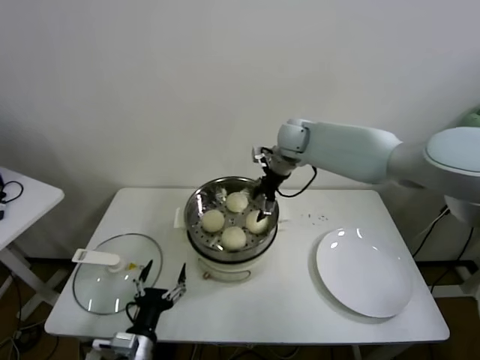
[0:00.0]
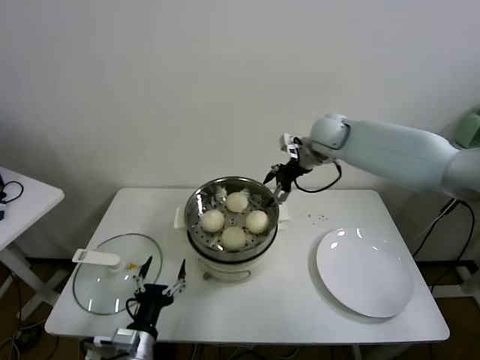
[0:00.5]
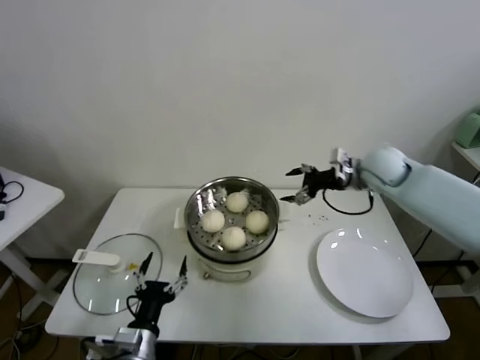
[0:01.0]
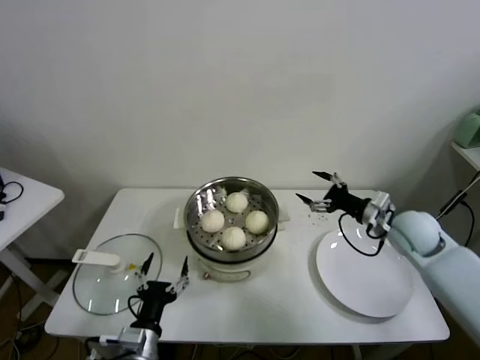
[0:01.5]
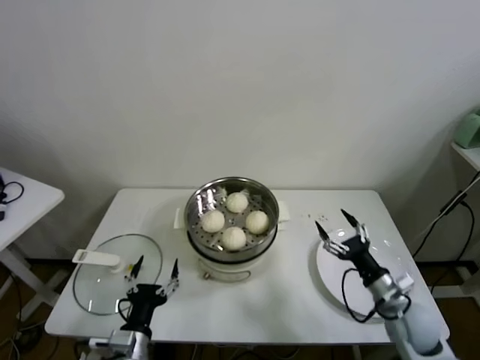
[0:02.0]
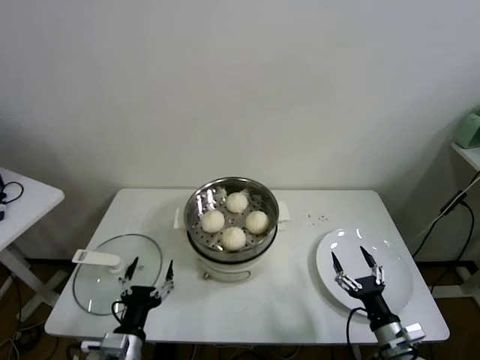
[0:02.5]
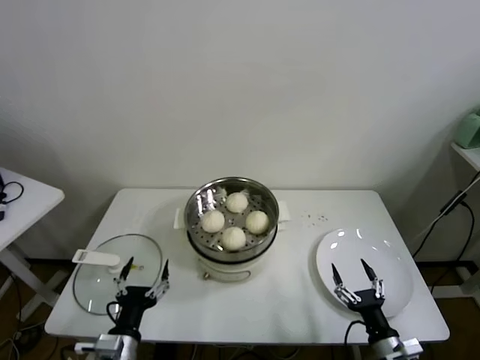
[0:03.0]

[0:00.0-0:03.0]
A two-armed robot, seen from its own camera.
Task of the whole recording: take steamed baozi put them in steamer.
0:00.0 to 0:01.5: The right gripper is displaced to the right, backward and downward by approximately 30 cm.
0:01.5 to 0:03.0: The right gripper is displaced backward and downward by some 35 cm.

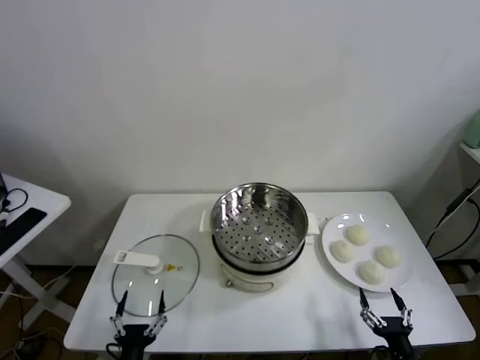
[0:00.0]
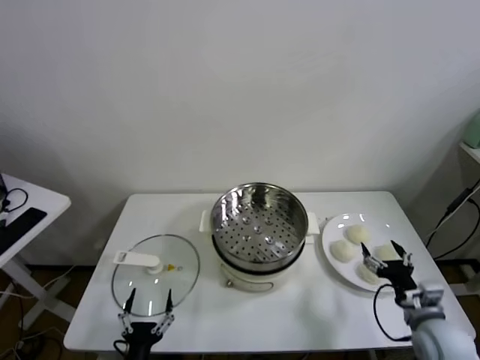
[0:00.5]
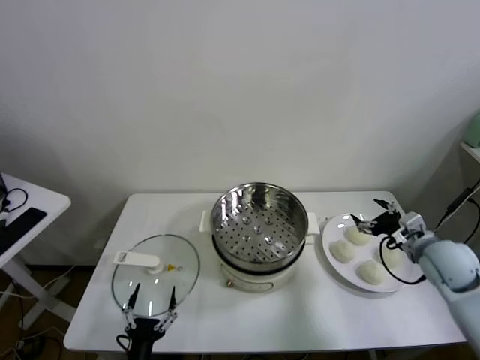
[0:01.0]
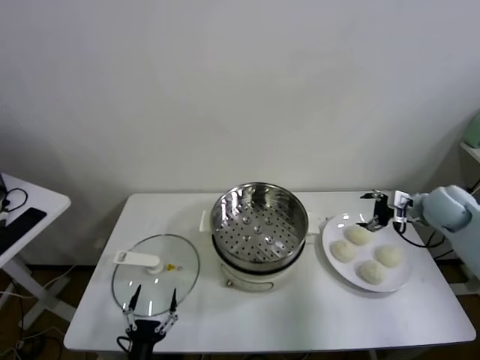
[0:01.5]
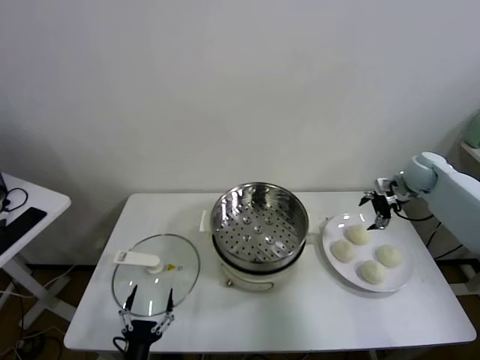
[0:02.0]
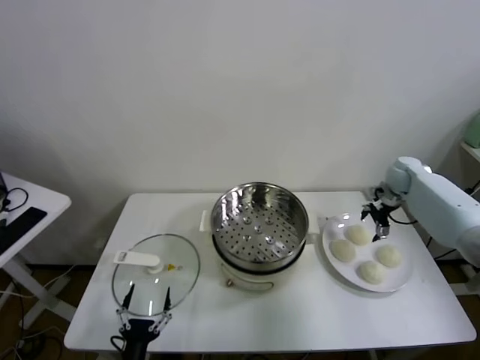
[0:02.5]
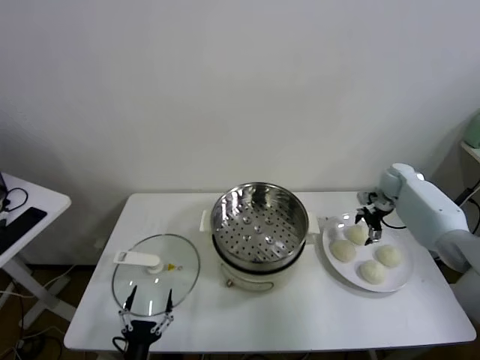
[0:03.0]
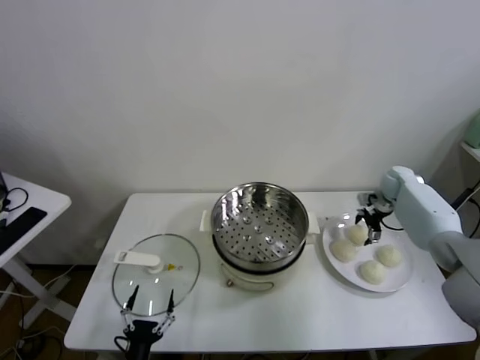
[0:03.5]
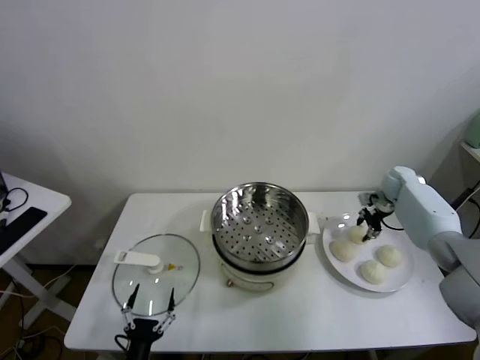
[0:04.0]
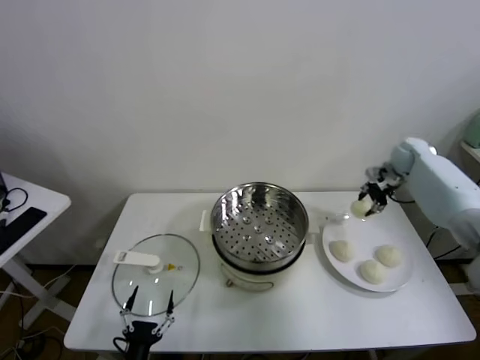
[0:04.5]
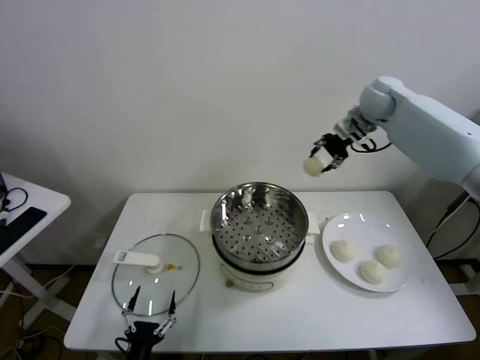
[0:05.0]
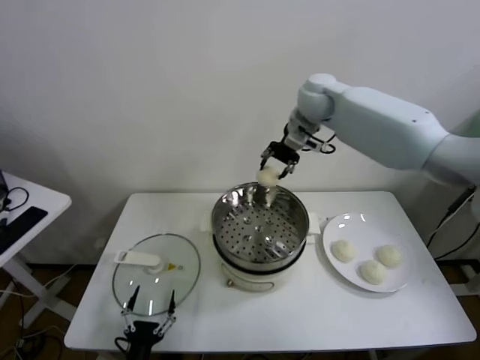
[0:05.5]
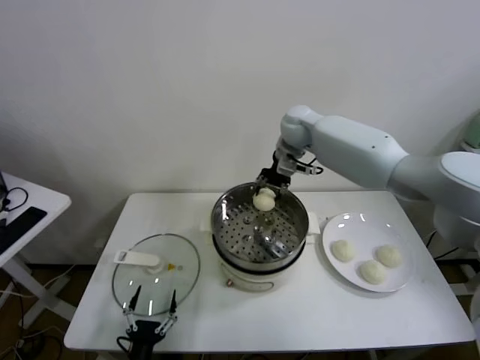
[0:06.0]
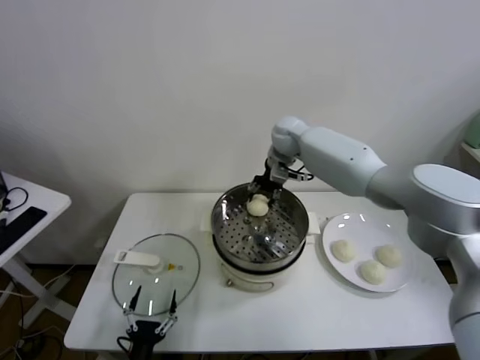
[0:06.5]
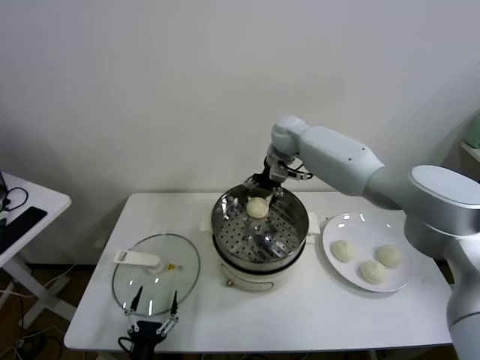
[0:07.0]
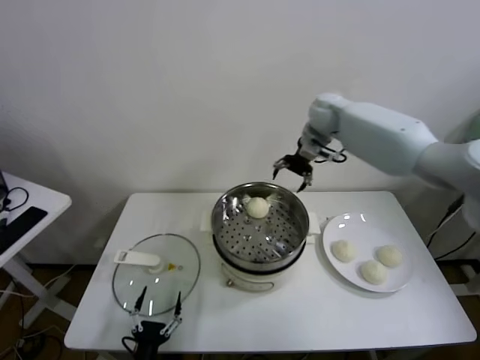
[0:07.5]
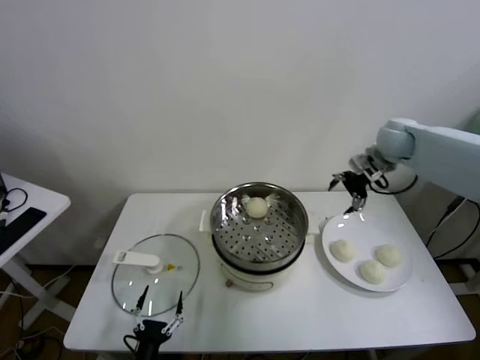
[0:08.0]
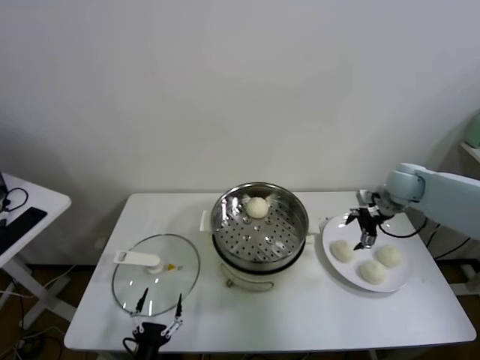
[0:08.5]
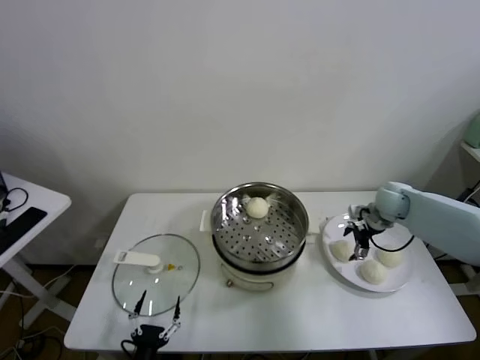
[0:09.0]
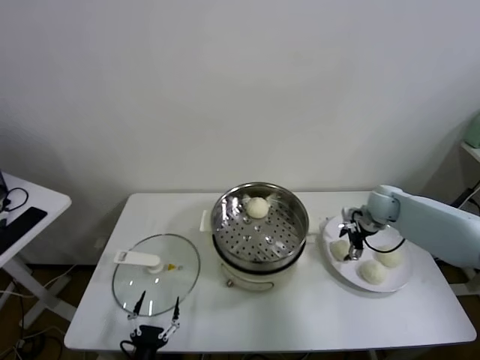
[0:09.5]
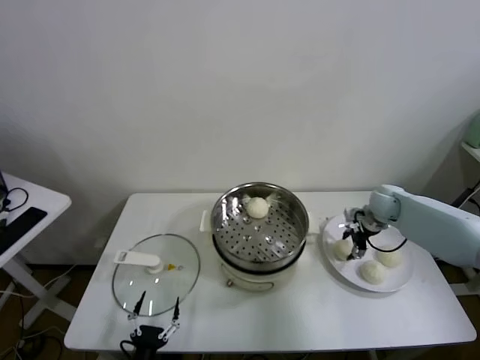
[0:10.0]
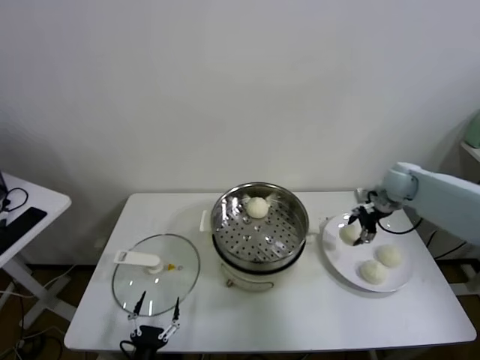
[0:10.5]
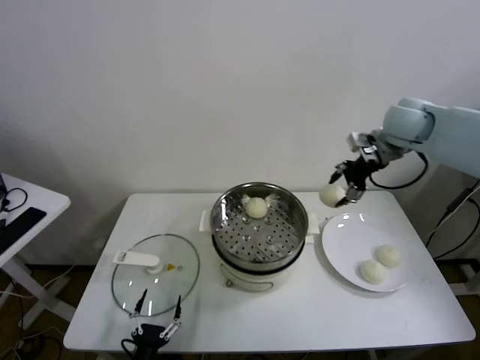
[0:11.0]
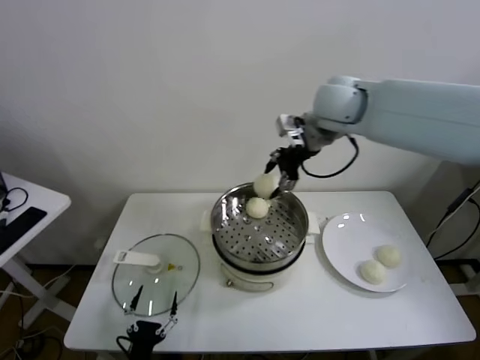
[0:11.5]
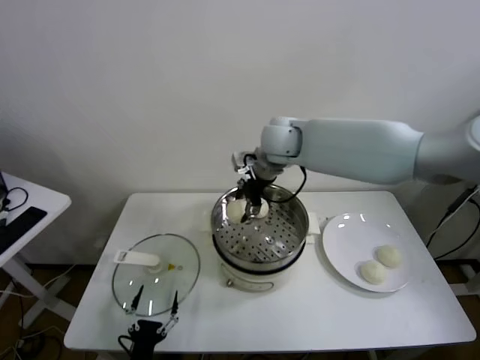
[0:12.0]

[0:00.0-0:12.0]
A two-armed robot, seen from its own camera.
Task of the whole recording: take steamed baozi put them in steamer.
Step, 0:00.0 to 0:04.0: Grasp the baozi in the plate with right gripper.
Step, 0:04.5 to 0:06.5: Place the baozi on the steamer with right gripper.
Step, 0:07.5 to 0:09.5: Grasp the baozi in the plate with right gripper.
0:02.0 to 0:04.0: The right gripper heads downward, covering approximately 10 cm, and closes up.
0:04.0 to 0:06.0: The right gripper shifts approximately 35 cm to the left and upward.
0:06.0 to 0:08.0: The right gripper heads to the right, covering roughly 25 cm, and opens its fingers.
0:08.0 to 0:10.0: The right gripper is displaced downward by roughly 15 cm, and closes.
0:10.0 to 0:12.0: The right gripper goes roughly 35 cm to the left and upward.

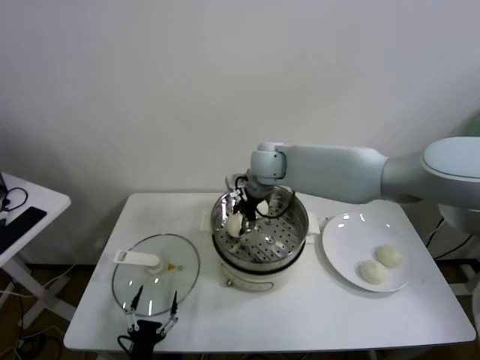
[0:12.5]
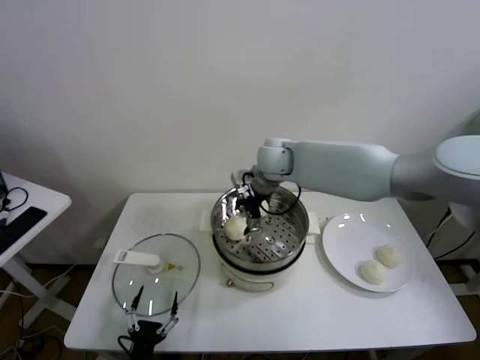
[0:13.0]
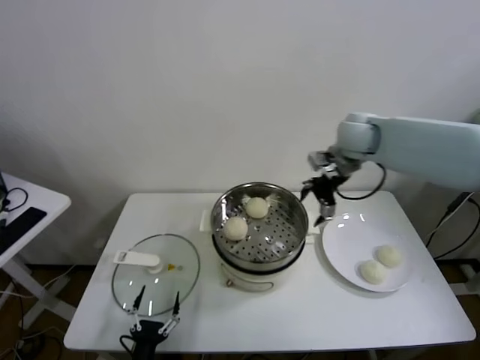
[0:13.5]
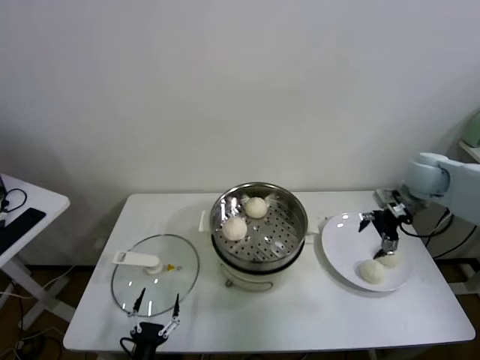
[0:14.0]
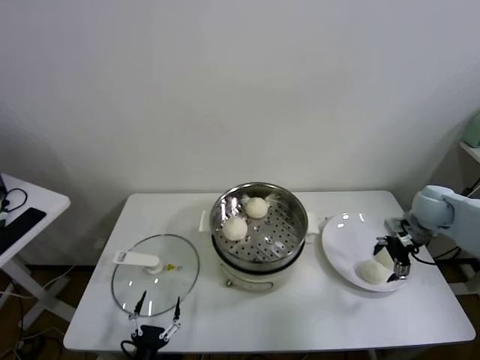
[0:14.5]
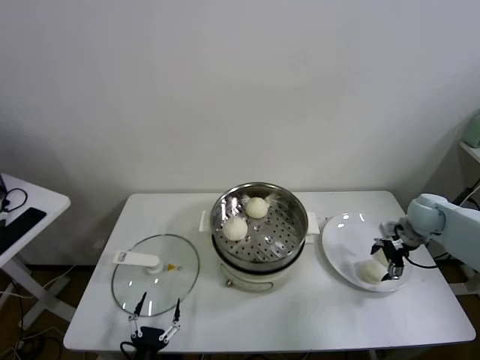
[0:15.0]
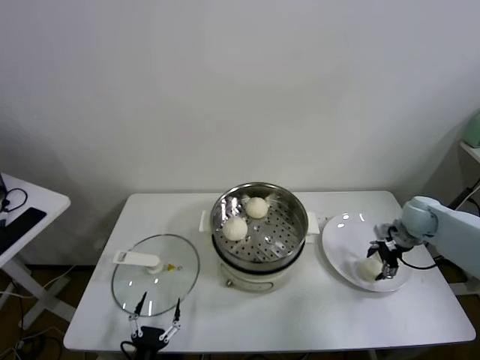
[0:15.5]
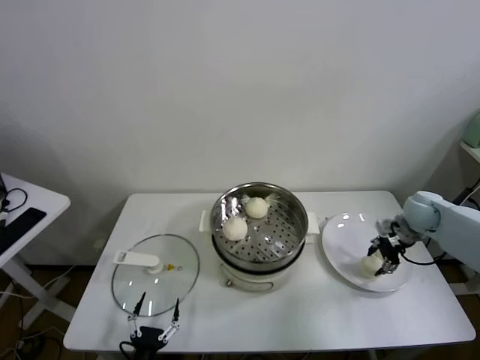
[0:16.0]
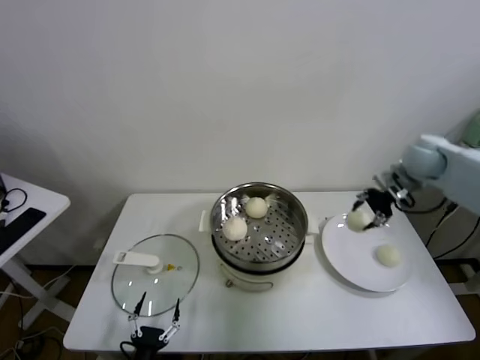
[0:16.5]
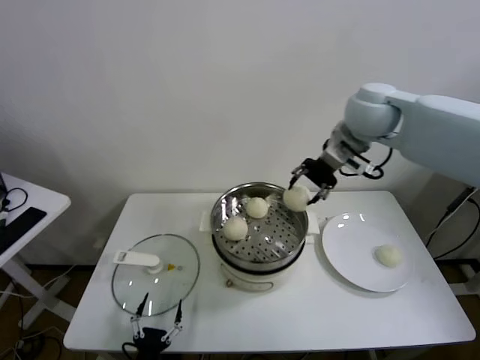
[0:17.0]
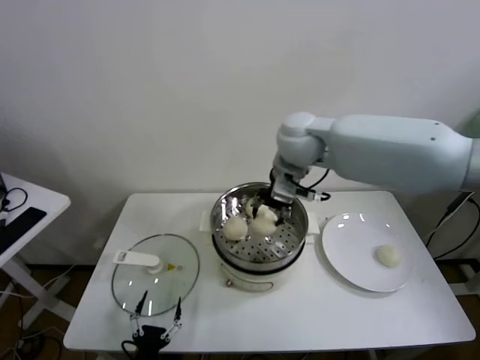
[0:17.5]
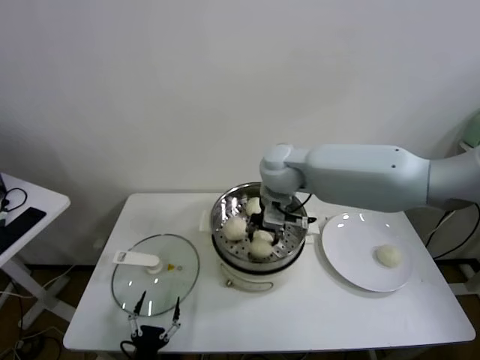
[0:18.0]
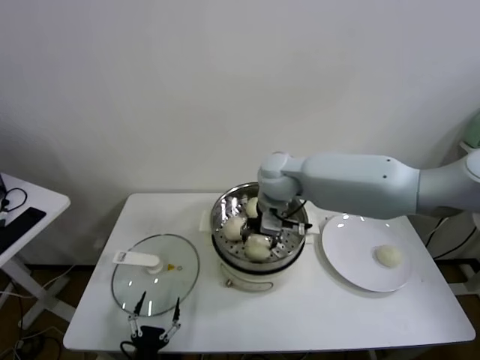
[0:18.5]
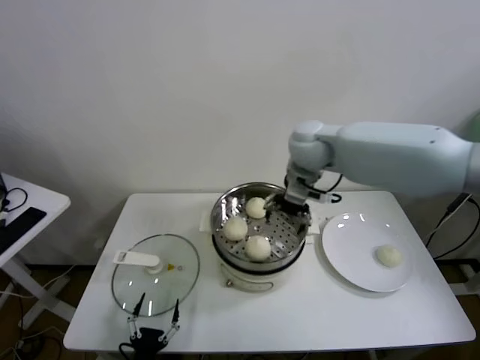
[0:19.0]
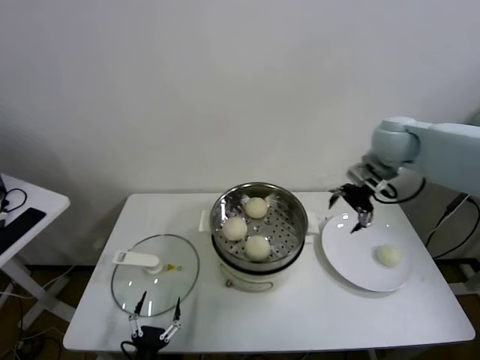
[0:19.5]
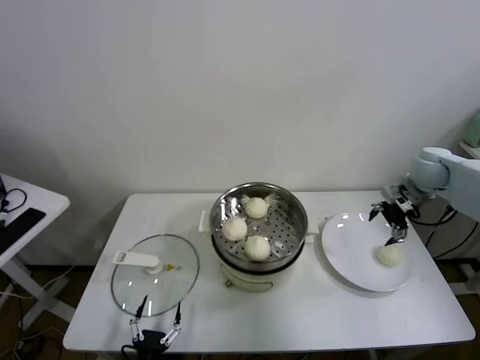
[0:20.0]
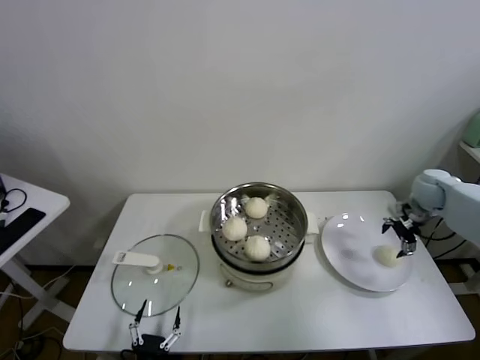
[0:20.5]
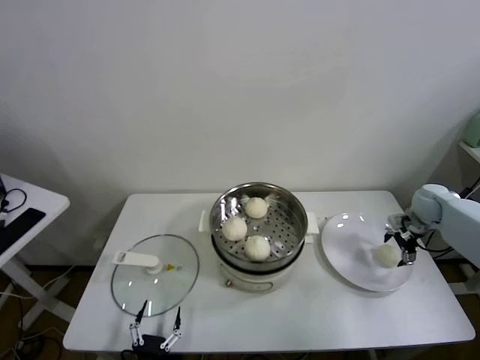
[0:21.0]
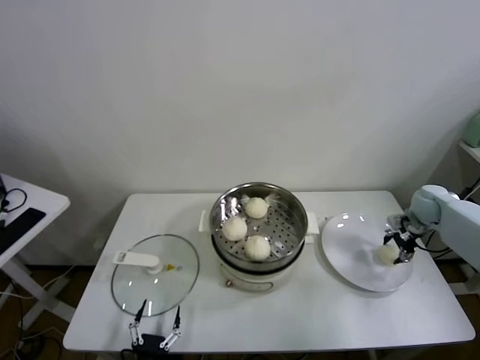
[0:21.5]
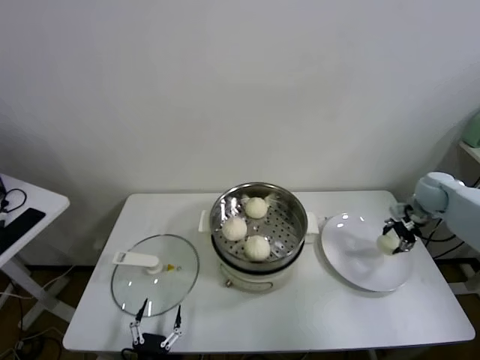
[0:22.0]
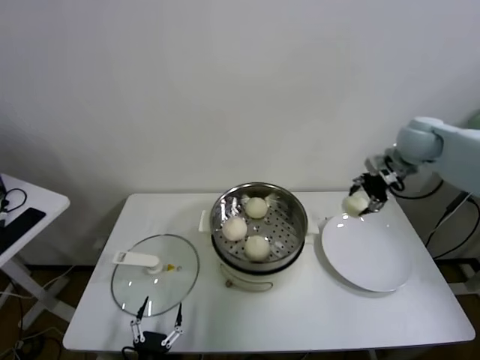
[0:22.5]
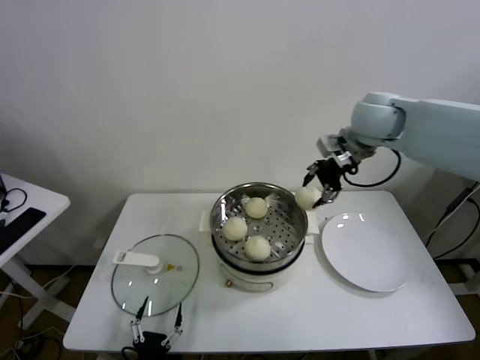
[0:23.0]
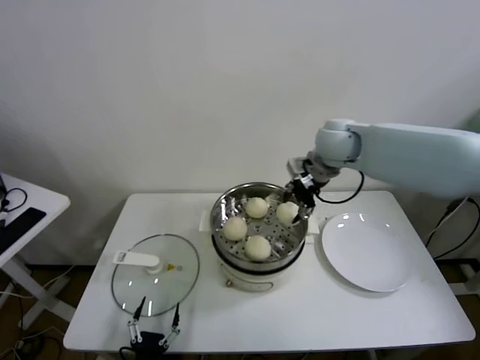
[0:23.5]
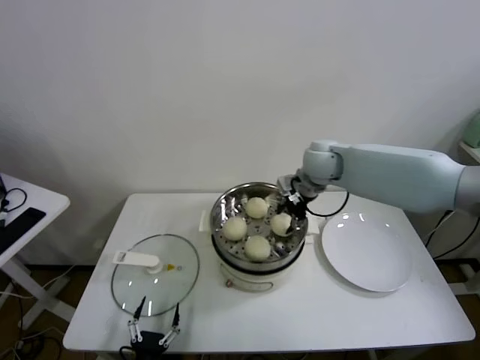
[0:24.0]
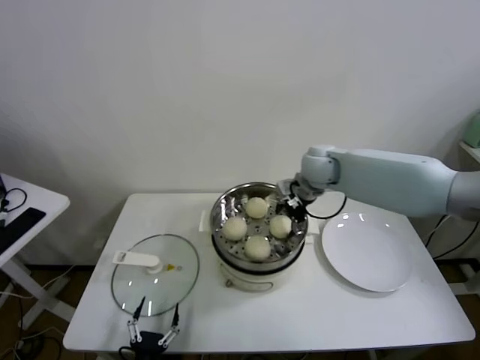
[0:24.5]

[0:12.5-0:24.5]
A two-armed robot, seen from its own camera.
Task of the whole recording: take steamed baozi put them in steamer.
Step, 0:13.5 to 0:15.5: Grasp the baozi in the plate with right gripper.
Step, 0:16.0 to 0:18.5: Place the baozi on the steamer with right gripper.
Step, 0:19.0 to 0:21.5: Grasp the baozi in the plate with right gripper.
Step, 0:22.0 to 0:24.5: Place the baozi on the steamer with right gripper.
0:12.5 to 0:14.5: The right gripper shifts approximately 40 cm to the right, and opens up.
0:14.5 to 0:16.5: The right gripper heads upward and forward, covering approximately 15 cm, and closes its fingers.
0:16.5 to 0:18.5: The right gripper travels to the left by approximately 30 cm, and opens up.
0:18.5 to 0:20.5: The right gripper shifts some 40 cm to the right, and opens up.
0:20.5 to 0:22.5: The right gripper is displaced upward and to the left by about 15 cm, and closes up.
0:22.5 to 0:24.5: The right gripper travels to the left by about 20 cm, and opens.
